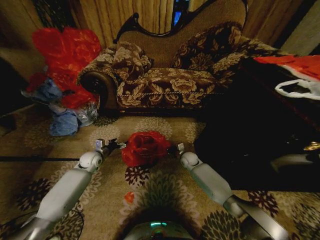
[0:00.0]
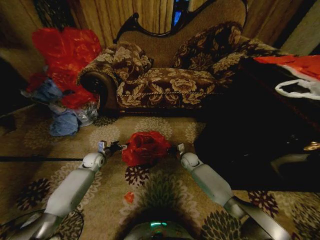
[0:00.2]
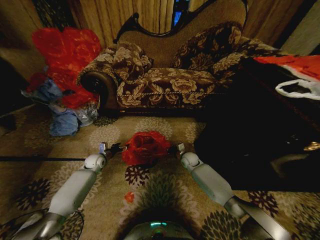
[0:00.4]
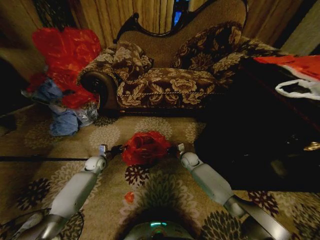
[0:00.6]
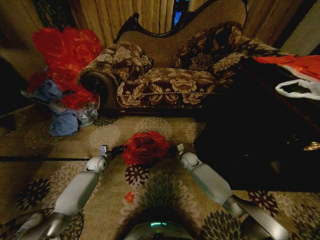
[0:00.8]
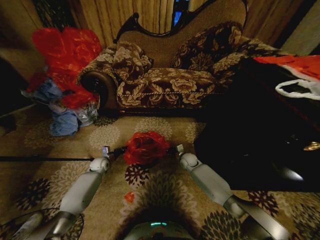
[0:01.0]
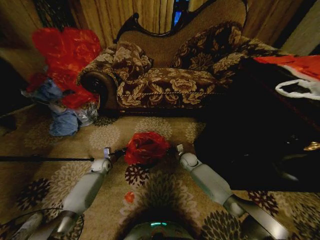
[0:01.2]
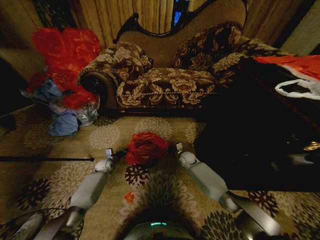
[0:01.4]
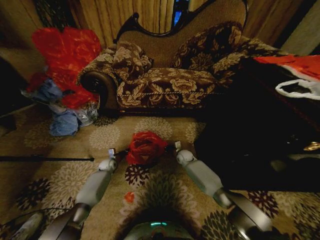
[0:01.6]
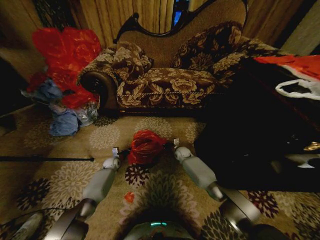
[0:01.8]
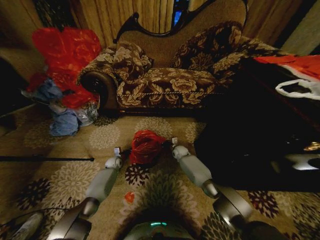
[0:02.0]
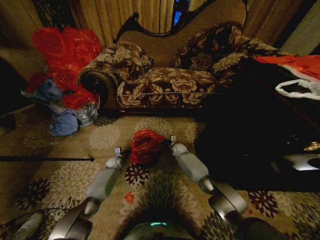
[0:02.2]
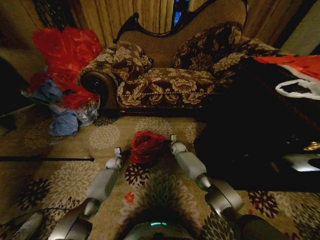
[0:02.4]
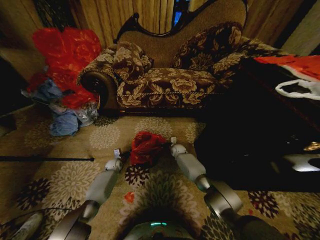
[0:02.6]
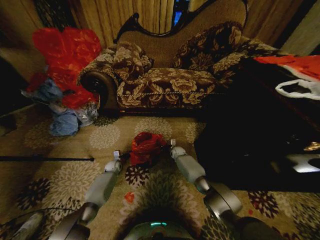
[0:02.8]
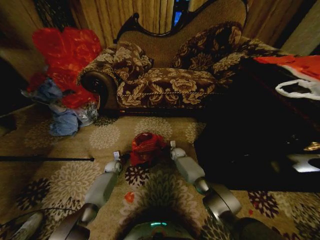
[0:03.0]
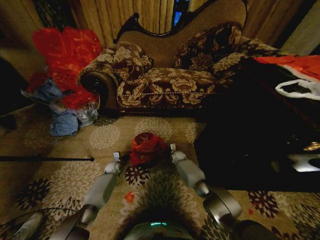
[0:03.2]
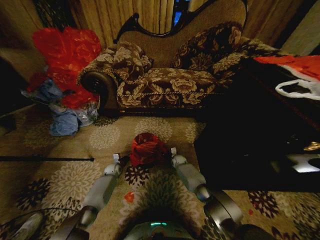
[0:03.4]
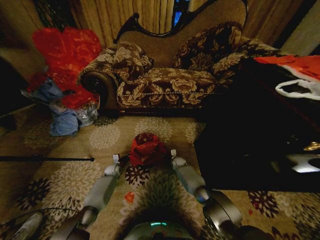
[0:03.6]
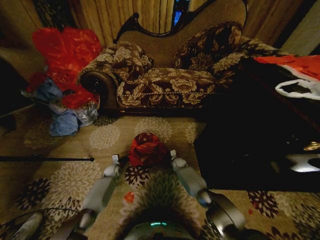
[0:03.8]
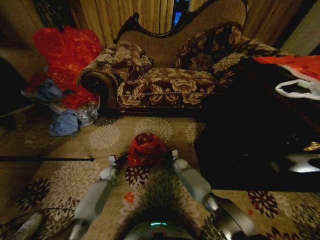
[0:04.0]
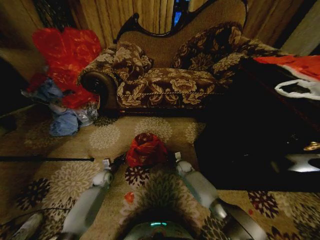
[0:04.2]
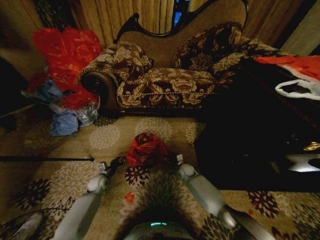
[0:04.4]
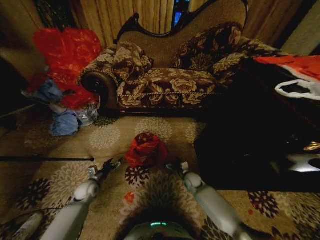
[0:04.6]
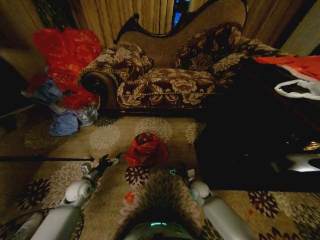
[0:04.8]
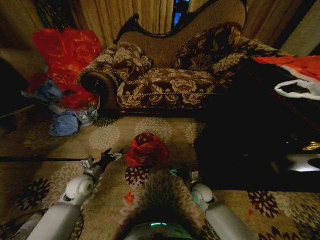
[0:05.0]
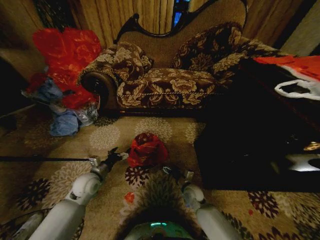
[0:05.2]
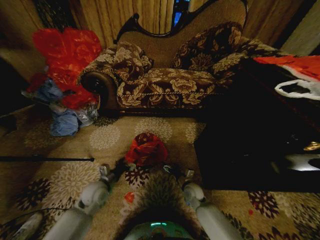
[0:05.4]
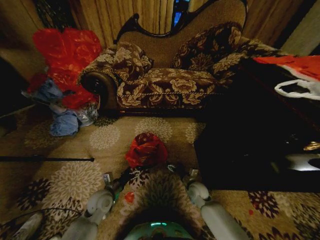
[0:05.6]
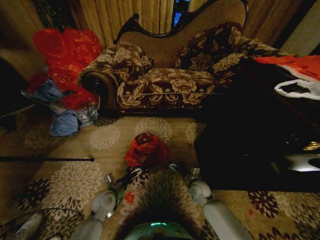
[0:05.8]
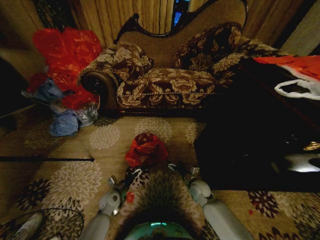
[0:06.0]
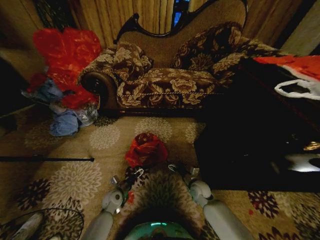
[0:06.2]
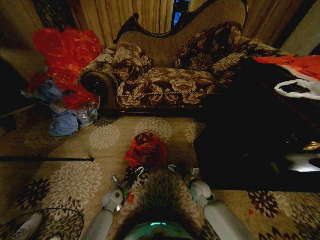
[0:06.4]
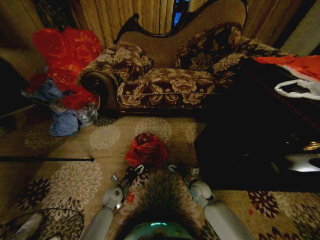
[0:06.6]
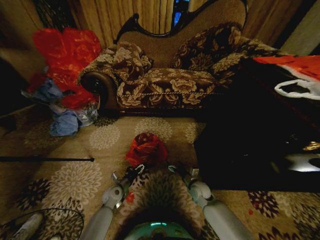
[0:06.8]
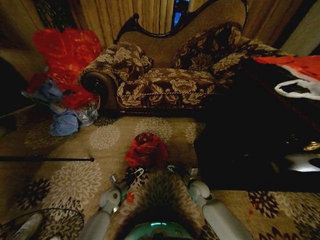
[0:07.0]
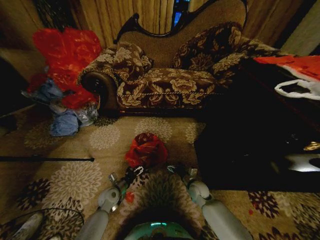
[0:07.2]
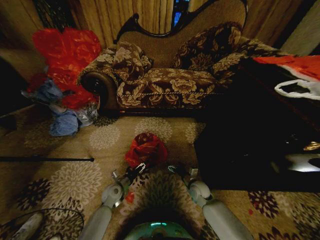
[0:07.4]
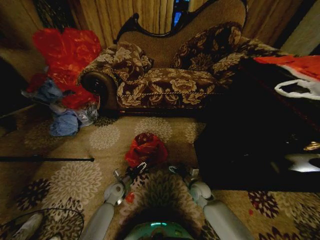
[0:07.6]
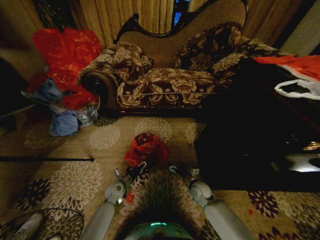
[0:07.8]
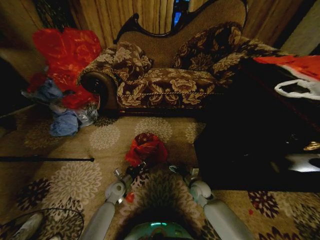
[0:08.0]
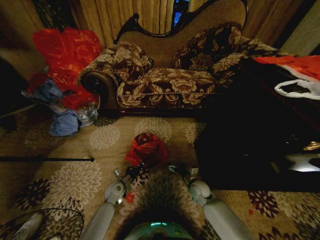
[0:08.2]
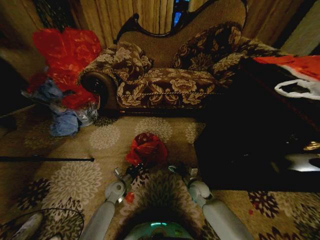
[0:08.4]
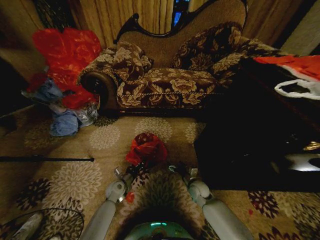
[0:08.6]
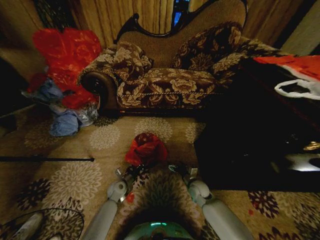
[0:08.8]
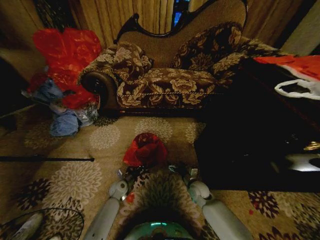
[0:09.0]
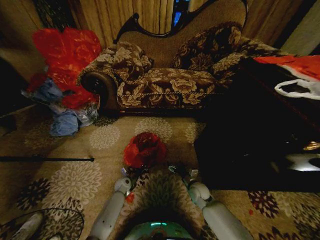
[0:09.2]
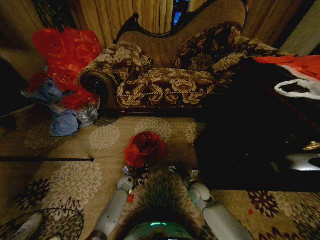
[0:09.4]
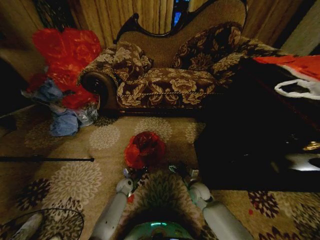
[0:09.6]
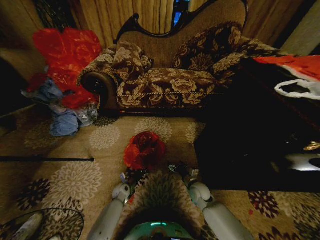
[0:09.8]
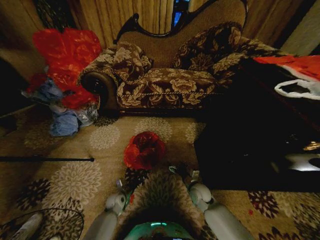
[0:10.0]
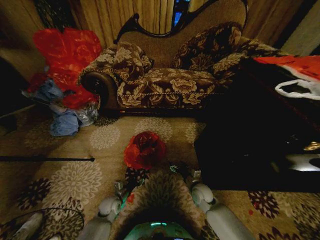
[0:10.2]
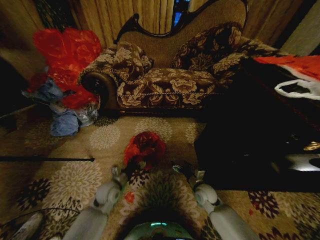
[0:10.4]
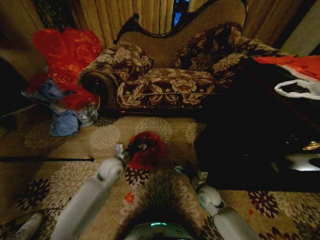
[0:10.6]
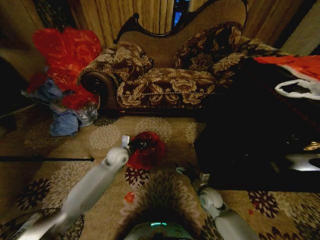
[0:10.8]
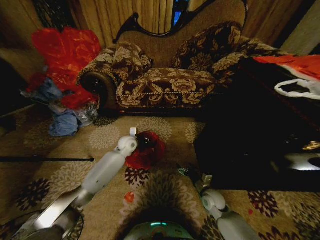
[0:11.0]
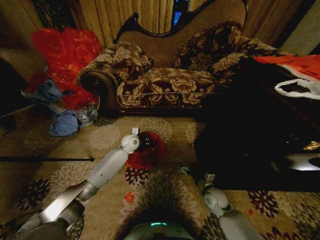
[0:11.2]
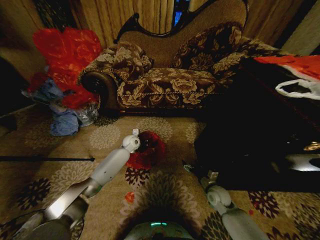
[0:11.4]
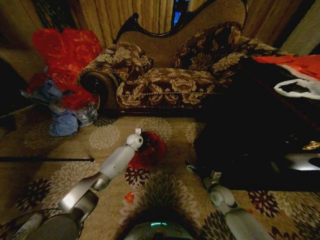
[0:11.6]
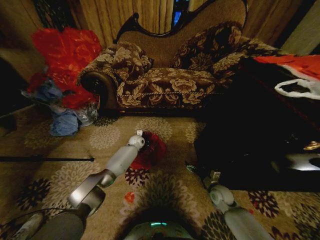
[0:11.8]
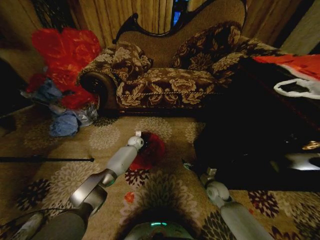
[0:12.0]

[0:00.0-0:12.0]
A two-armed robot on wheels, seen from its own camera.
Task of the whole recording: Place a garbage bag over the trash bin.
0:00.0 to 0:01.6: The left gripper goes roughly 15 cm downward, and closes.
0:01.6 to 0:03.0: The right gripper ends up roughly 5 cm from where it was.
0:03.0 to 0:04.4: Both grippers move backward, some 10 cm. The right gripper opens its fingers, while the left gripper opens up.
0:04.4 to 0:06.0: The left gripper is displaced to the right and backward by some 15 cm, reaches roughly 15 cm upward, then returns, and opens its fingers, while the right gripper is displaced backward by about 10 cm, and opens.
0:06.0 to 0:07.6: The grippers make only small movements.
0:07.6 to 0:09.0: The left gripper closes its fingers.
0:09.0 to 0:10.4: The left gripper travels upward and backward by some 15 cm, and opens.
0:10.4 to 0:12.0: The right gripper travels to the right by approximately 5 cm; the left gripper shifts some 30 cm forward, and closes its fingers.

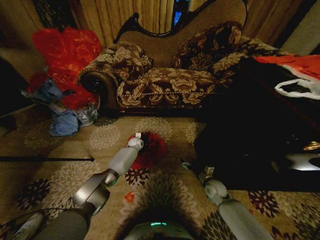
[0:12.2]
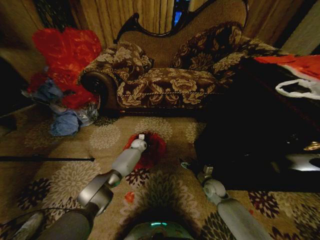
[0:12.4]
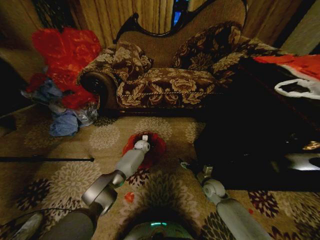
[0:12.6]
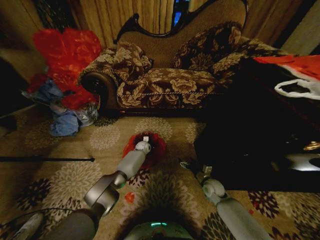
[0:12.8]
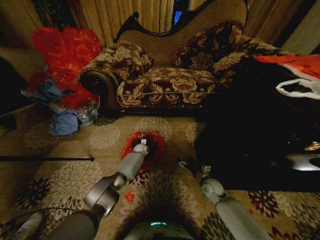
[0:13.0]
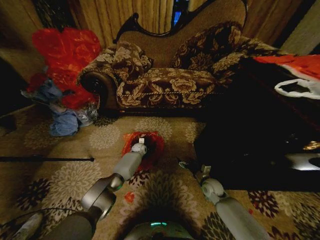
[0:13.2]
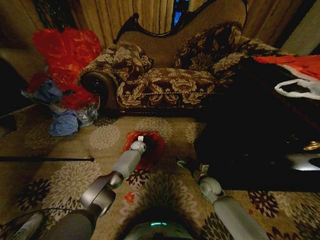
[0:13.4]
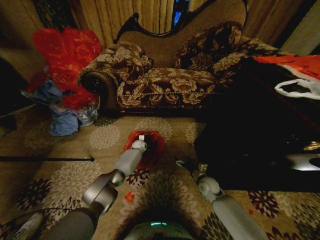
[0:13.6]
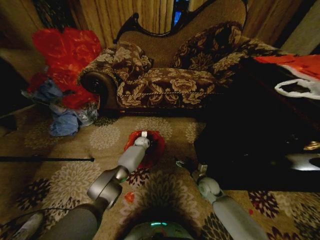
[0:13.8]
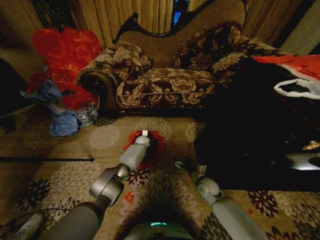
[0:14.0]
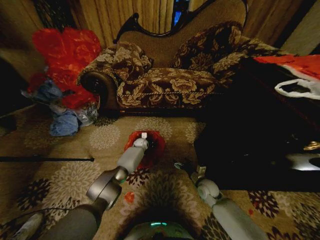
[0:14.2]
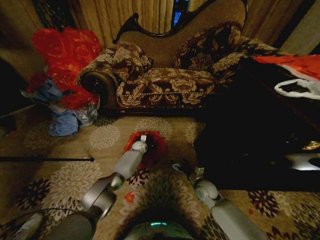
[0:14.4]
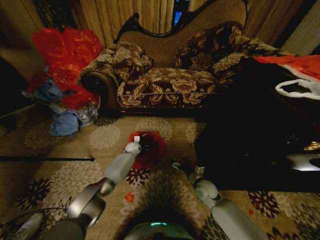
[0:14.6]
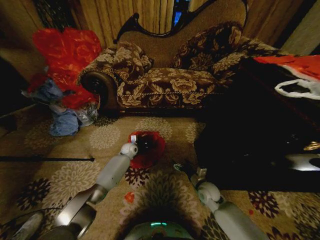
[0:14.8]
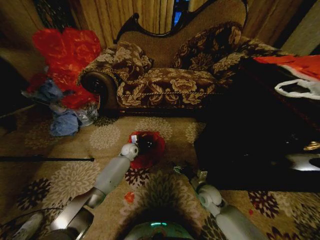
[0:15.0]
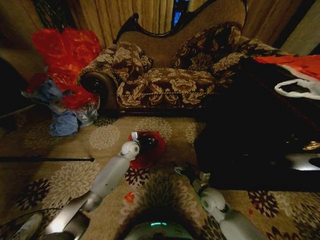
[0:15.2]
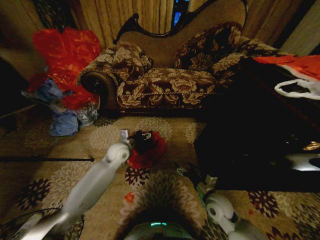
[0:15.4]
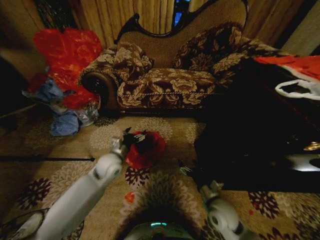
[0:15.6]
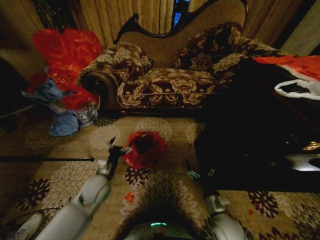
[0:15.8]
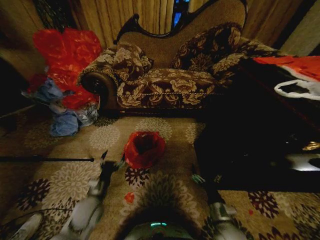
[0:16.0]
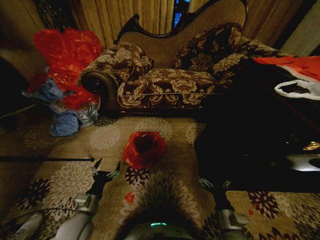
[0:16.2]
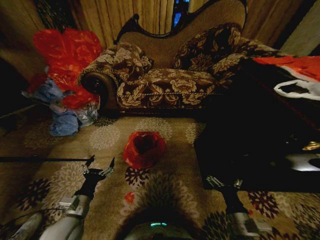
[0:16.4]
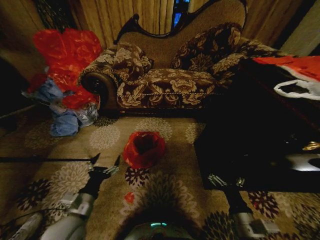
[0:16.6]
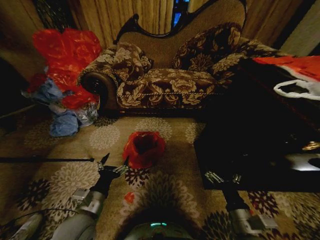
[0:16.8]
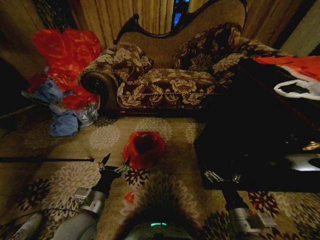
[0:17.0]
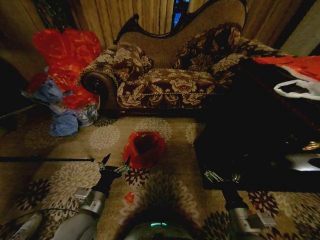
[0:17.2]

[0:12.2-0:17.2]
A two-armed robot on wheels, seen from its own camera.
Task of the whole recording: Place a garbage bag over the trash bin.
0:12.2 to 0:13.8: The grippers stay close to where they were, moving slightly.
0:13.8 to 0:15.6: The right gripper is displaced backward and upward by some 15 cm; the left gripper is displaced backward and upward by about 30 cm, and opens its fingers.
0:15.6 to 0:17.2: The right gripper is displaced backward and upward by about 10 cm. The left gripper shifts some 20 cm backward.
